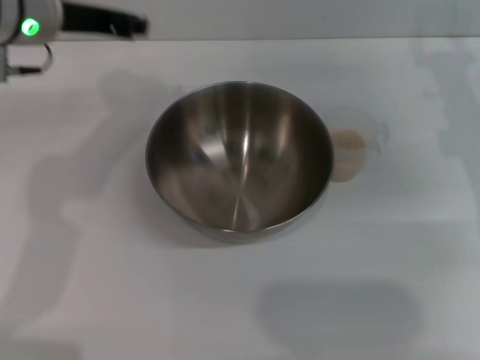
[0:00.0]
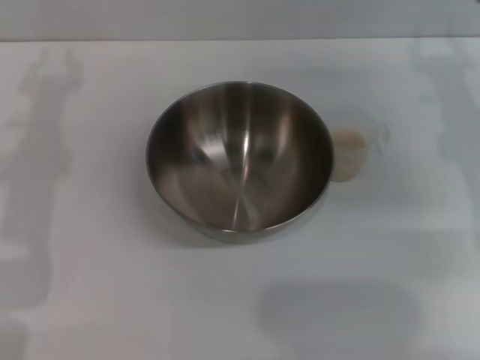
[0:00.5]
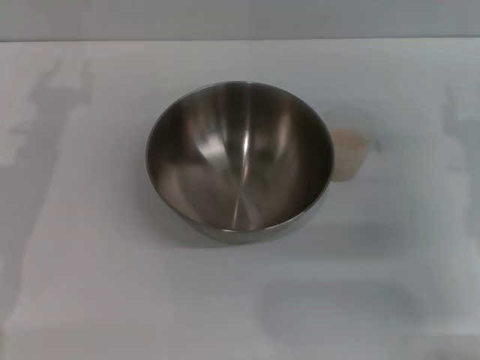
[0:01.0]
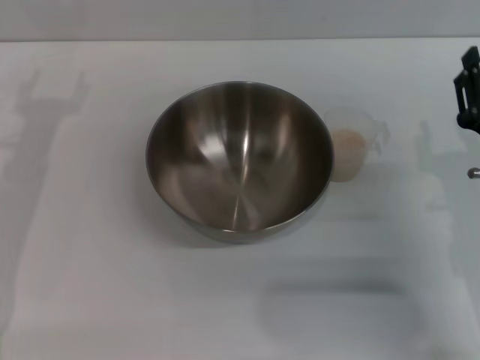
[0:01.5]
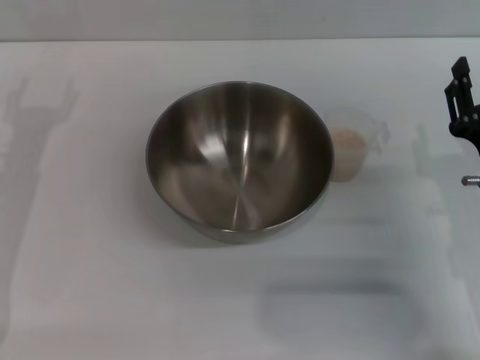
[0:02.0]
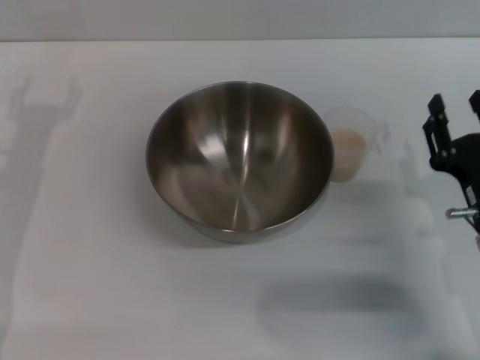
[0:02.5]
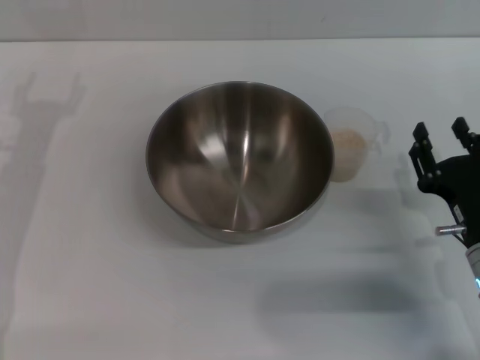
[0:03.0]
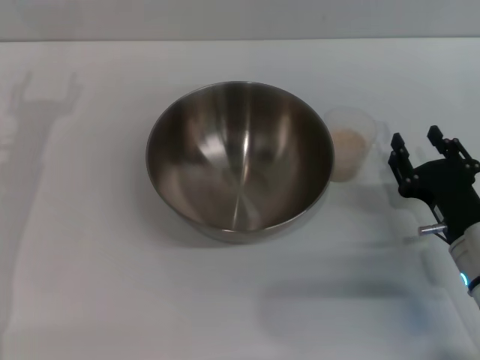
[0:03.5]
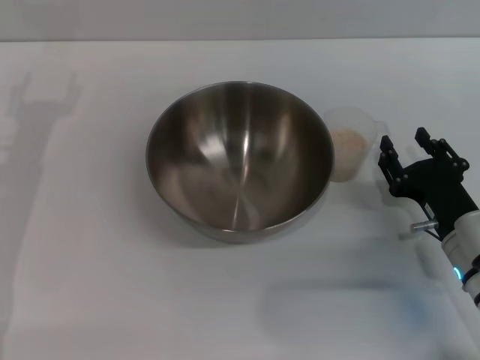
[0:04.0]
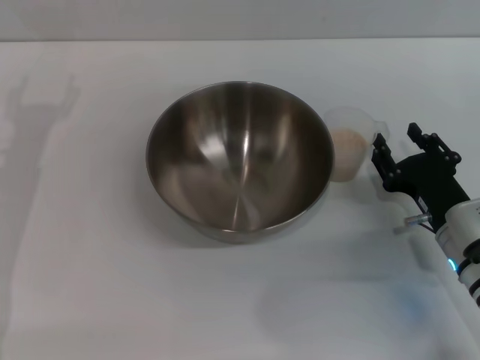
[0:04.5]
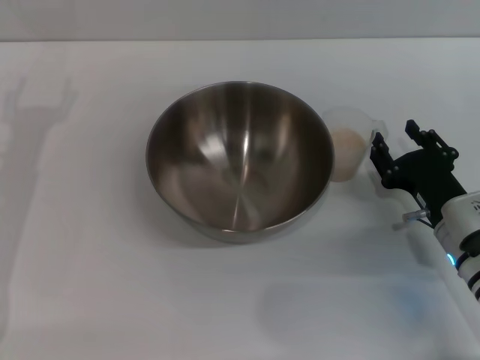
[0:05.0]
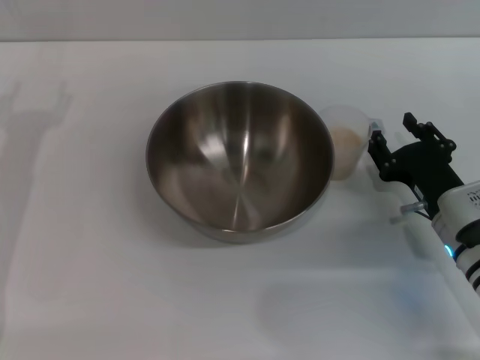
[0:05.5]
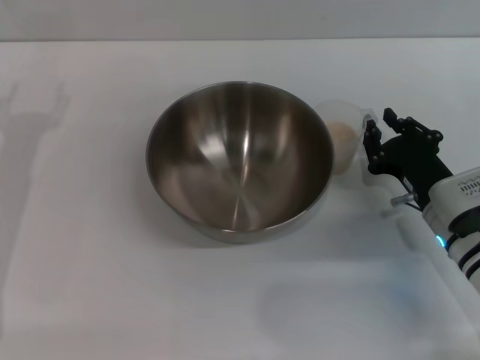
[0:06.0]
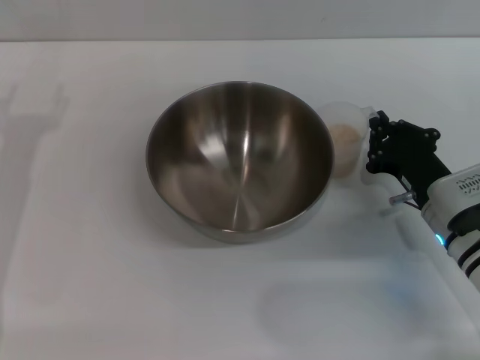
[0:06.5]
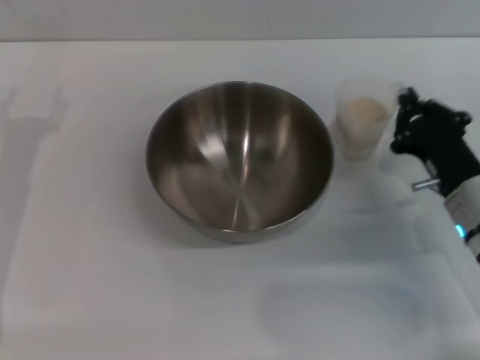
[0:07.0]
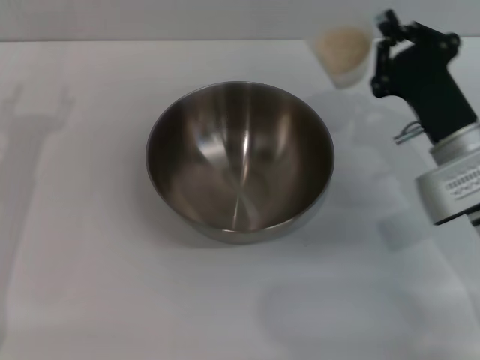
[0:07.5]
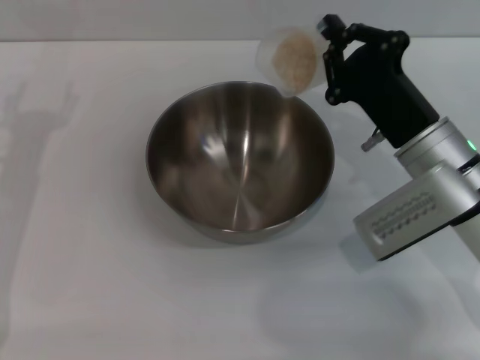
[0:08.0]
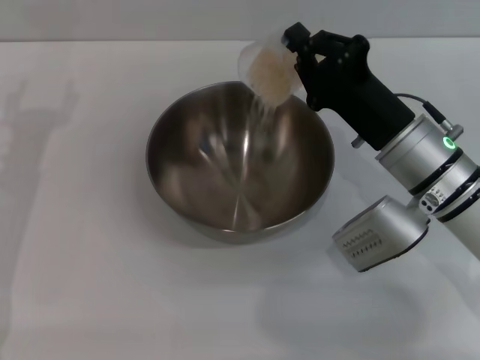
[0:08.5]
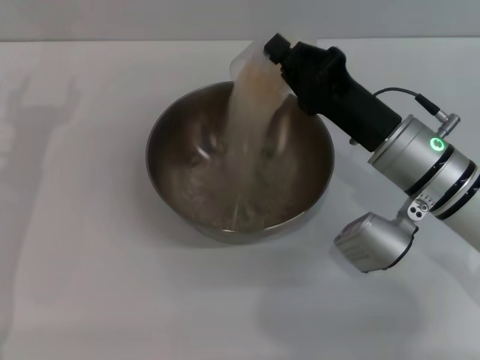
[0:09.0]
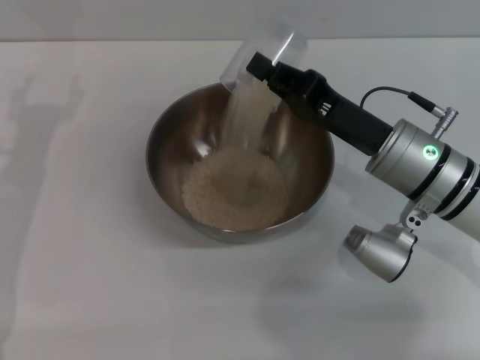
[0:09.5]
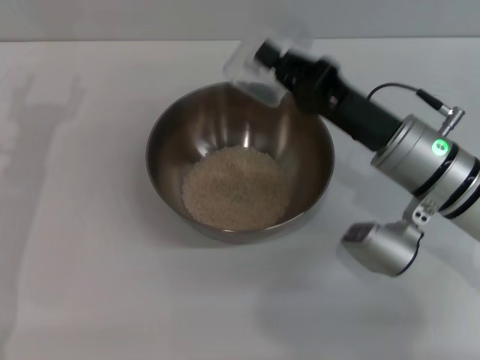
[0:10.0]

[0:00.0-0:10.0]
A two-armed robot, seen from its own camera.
Task of the whole recording: Place the bowl in the middle of the table with one hand and pour the rice from the grain cup into it with the other hand.
Step, 0:00.0 to 0:06.5: Pick up the cup with rice in it with the right gripper.
Step, 0:07.0 to 0:10.0: Pour the rice from the cup into the bowl with the right gripper.
0:00.0 to 0:02.0: The right gripper shifts about 20 cm backward and downward. Meanwhile the left gripper travels downward, to the left and backward by roughly 15 cm, and opens up.
0:04.0 to 0:06.0: There are only small adjustments of the grippers.
0:06.0 to 0:08.0: The right gripper heads upward, covering some 5 cm, and closes.

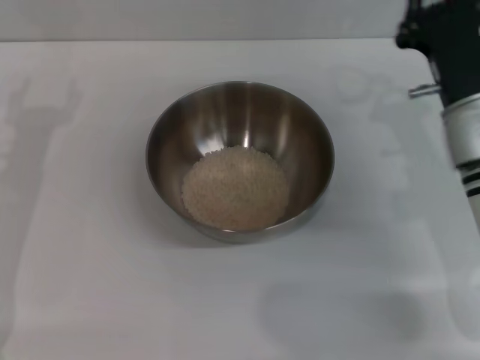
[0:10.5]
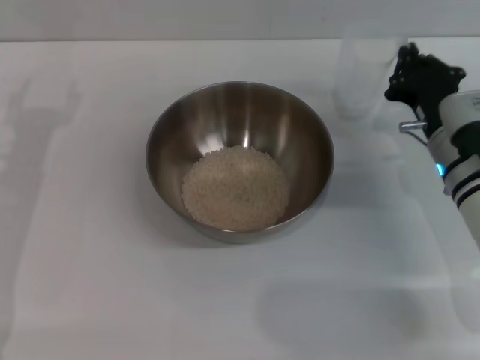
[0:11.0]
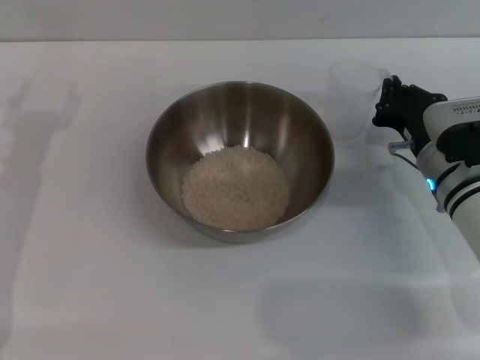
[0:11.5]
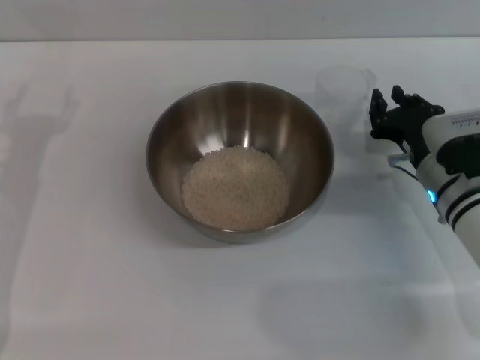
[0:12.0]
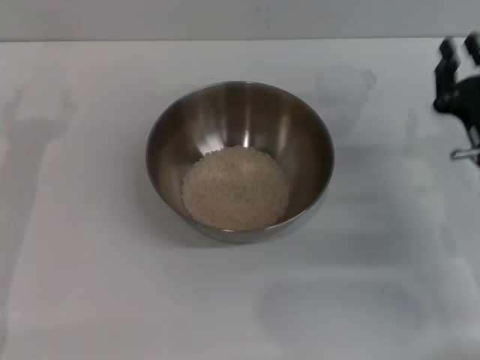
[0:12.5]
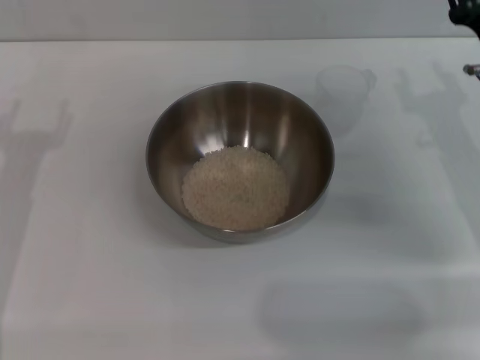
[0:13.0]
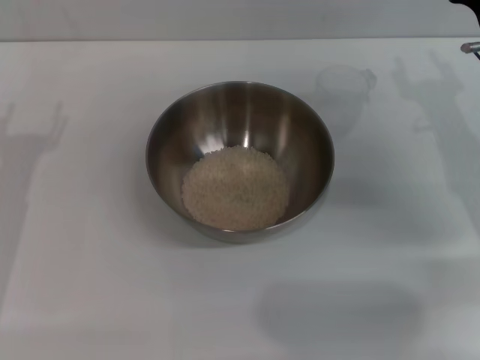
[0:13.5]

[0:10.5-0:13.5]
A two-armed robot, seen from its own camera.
Task of the whole recording: Place the bowl in the middle of the table with one hand and pour the rice from the grain cup into it with the other hand.
Step, 0:10.5 to 0:12.0: Place the cup on the table with the right gripper.
0:10.5 to 0:12.0: The right gripper is displaced downward by roughly 5 cm.
0:12.0 to 0:13.5: The right gripper moves upward, some 10 cm, and opens its fingers.

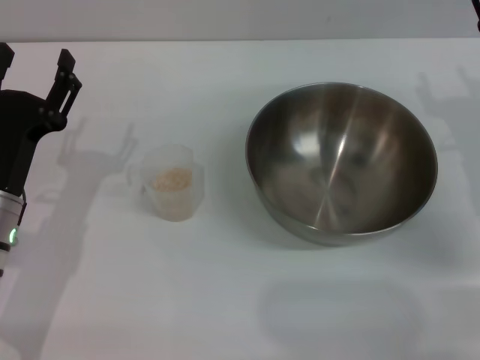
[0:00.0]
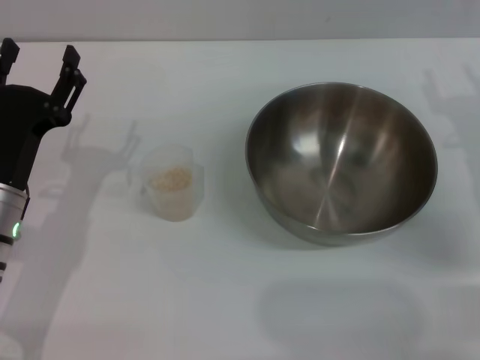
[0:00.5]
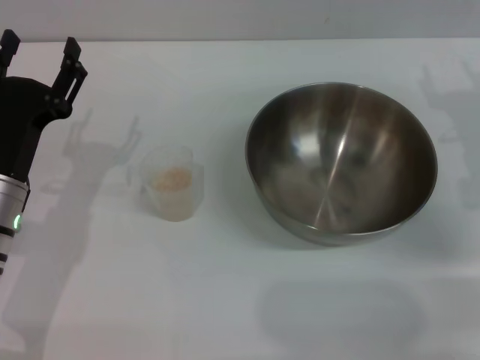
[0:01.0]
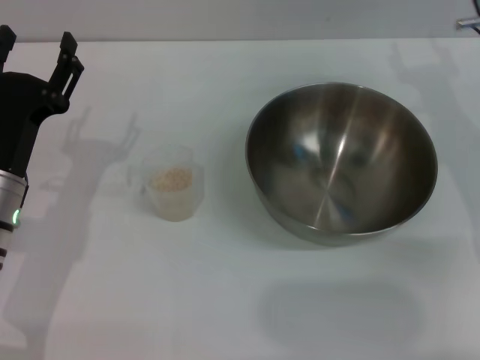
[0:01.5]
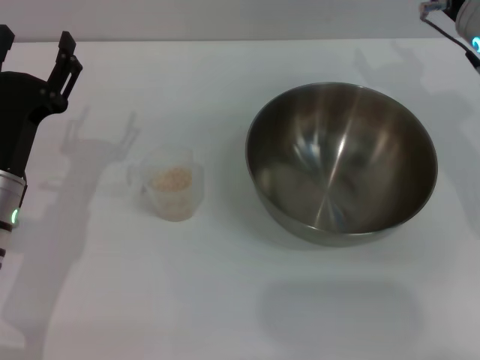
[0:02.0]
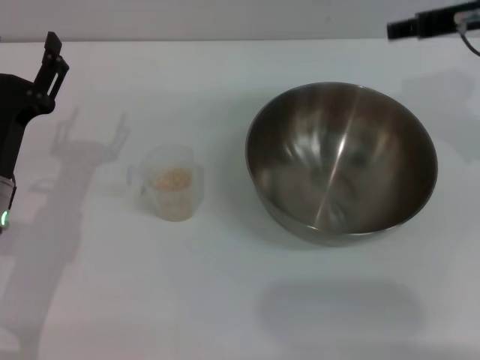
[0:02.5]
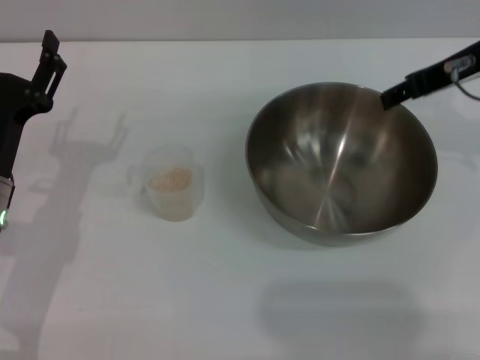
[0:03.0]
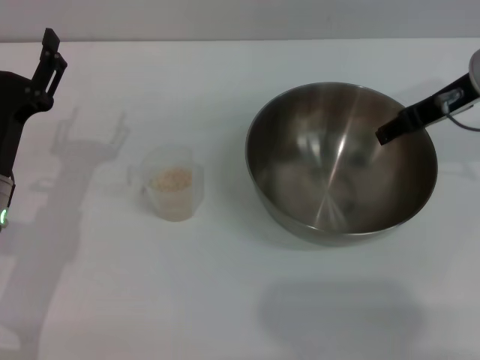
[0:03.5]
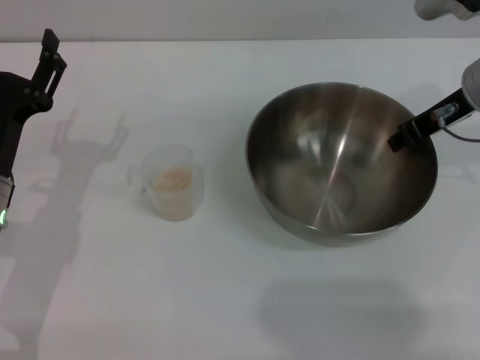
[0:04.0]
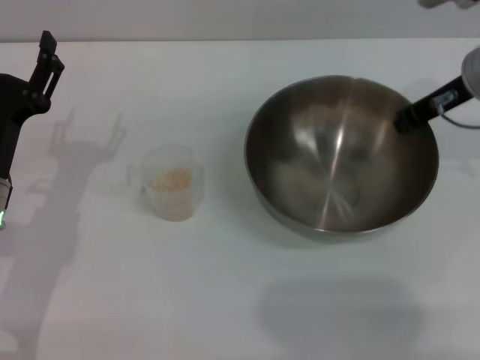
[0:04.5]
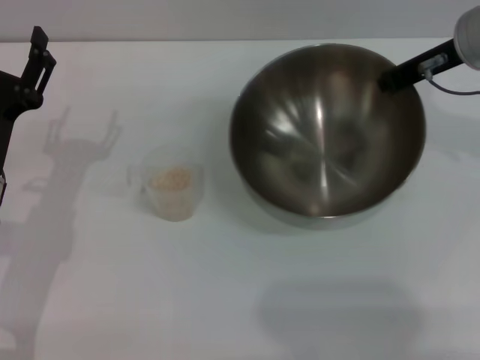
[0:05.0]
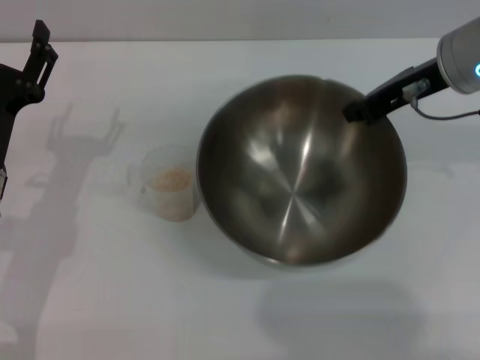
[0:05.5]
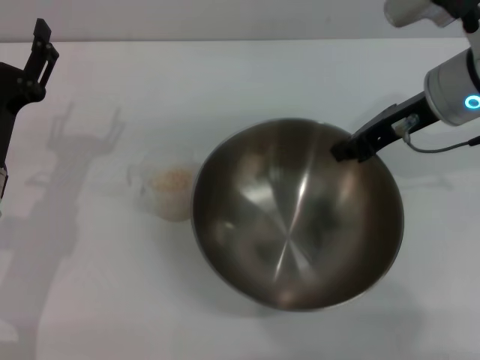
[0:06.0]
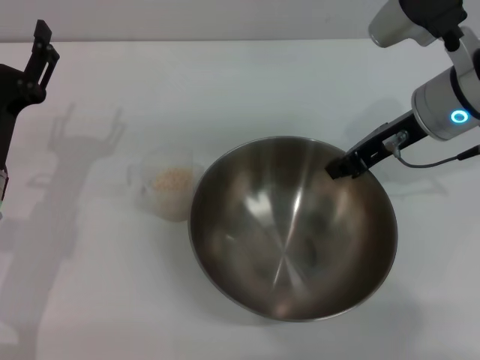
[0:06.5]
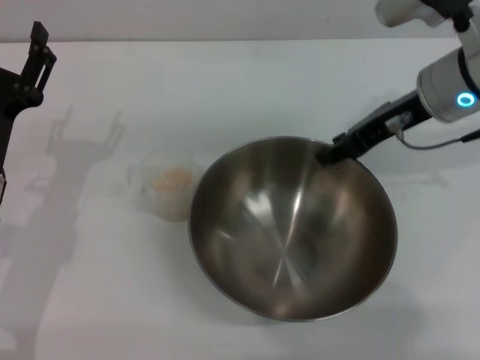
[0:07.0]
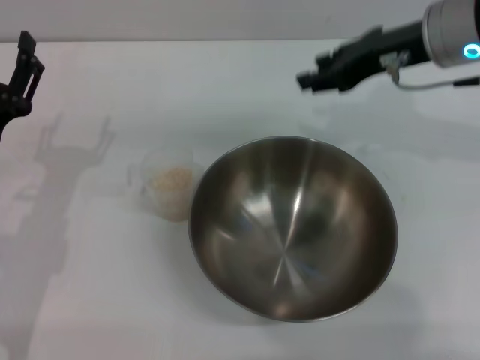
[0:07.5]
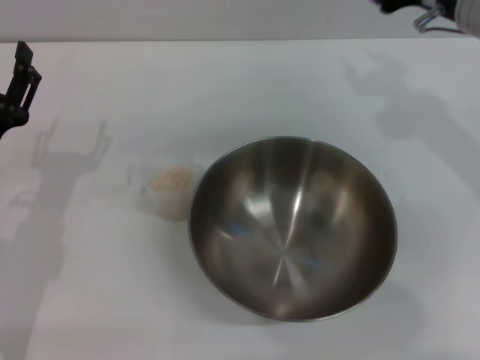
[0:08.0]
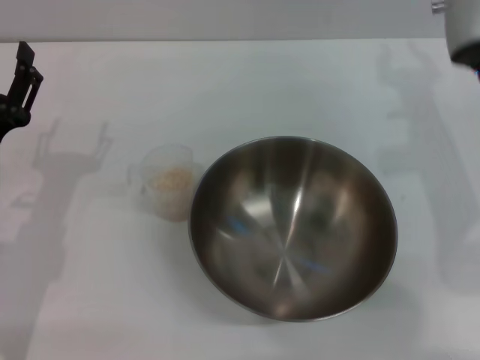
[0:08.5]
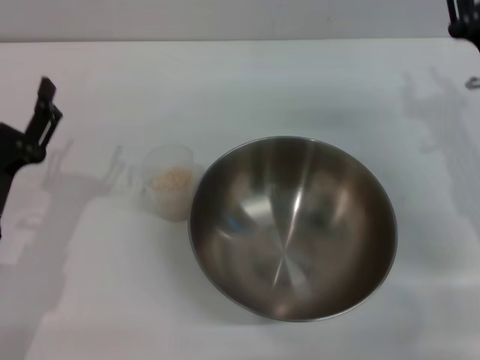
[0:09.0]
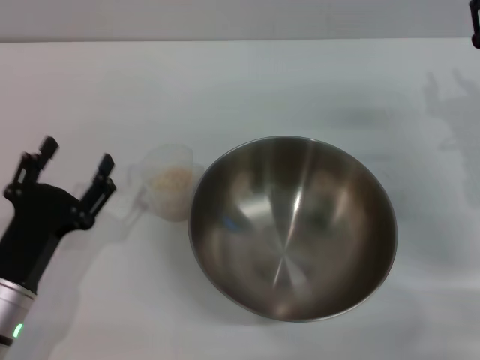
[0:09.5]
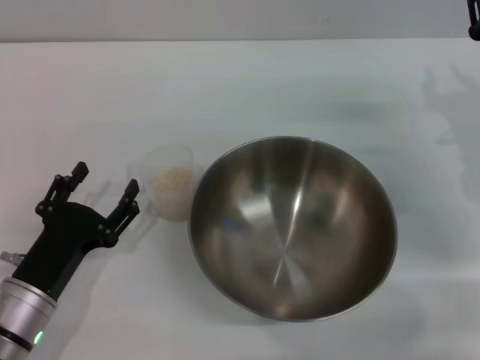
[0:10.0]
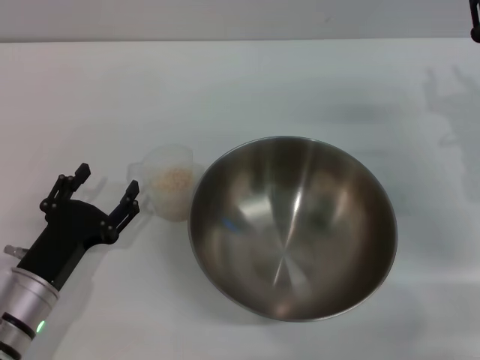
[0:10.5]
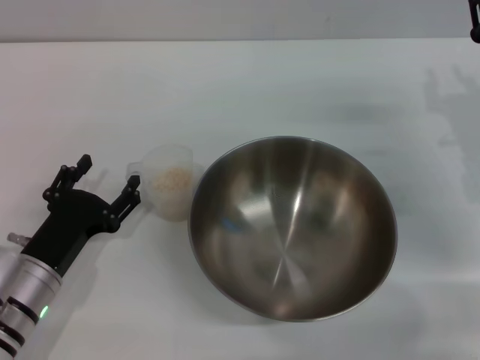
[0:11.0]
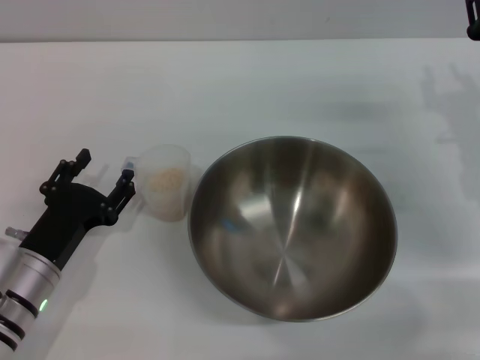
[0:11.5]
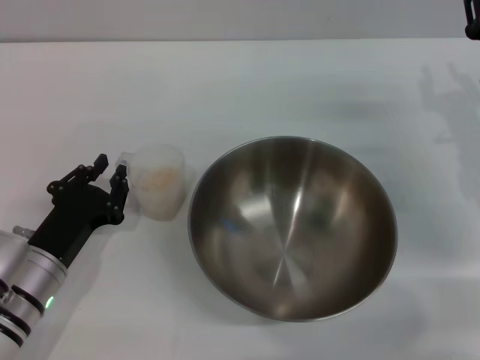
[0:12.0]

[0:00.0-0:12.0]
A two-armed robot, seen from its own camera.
Task of the whole recording: Place the bowl in the middle of the table with one hand and pour the rice from the grain cup into it with the other hand.
Step, 0:00.0 to 0:04.5: Pick up the bowl with the right gripper.
Step, 0:05.0 to 0:07.0: Place the bowl in the center of view with the right gripper.
0:00.0 to 0:02.0: The right gripper moves upward, to the left and forward, about 10 cm.
0:04.0 to 0:06.0: The right gripper closes.
0:06.0 to 0:08.0: The right gripper opens.
0:08.0 to 0:10.0: The right gripper is displaced downward and to the right by approximately 15 cm; the left gripper heads backward and downward, covering about 10 cm.
0:10.0 to 0:12.0: There are only small adjustments of the grippers.
